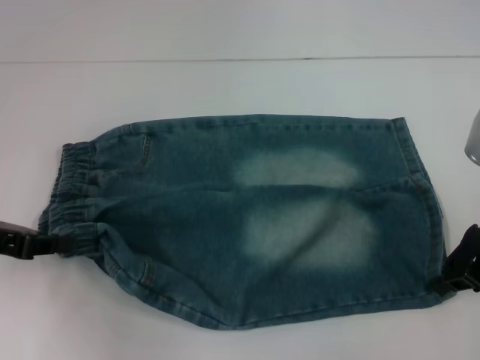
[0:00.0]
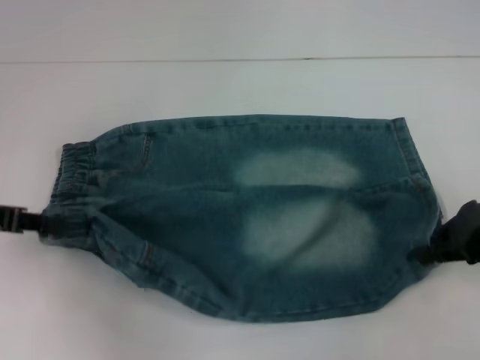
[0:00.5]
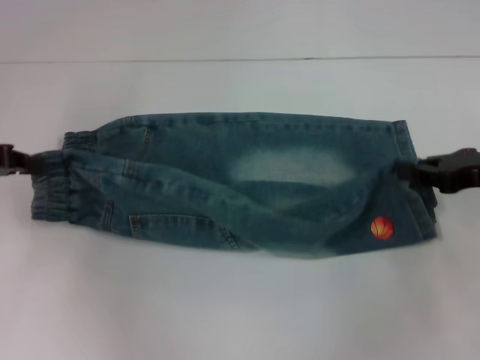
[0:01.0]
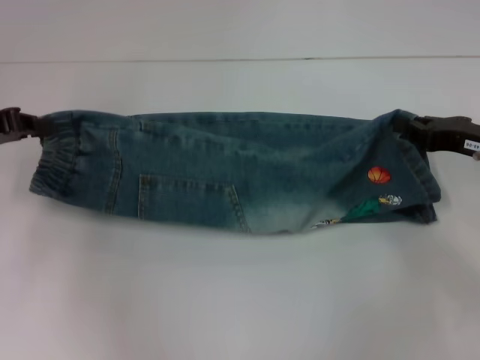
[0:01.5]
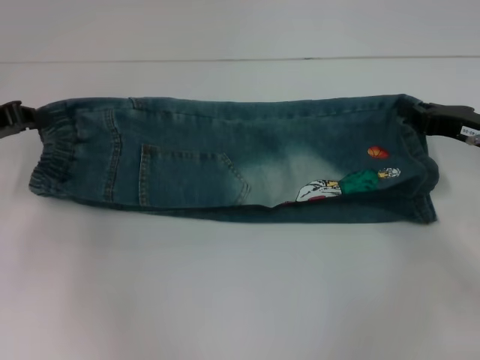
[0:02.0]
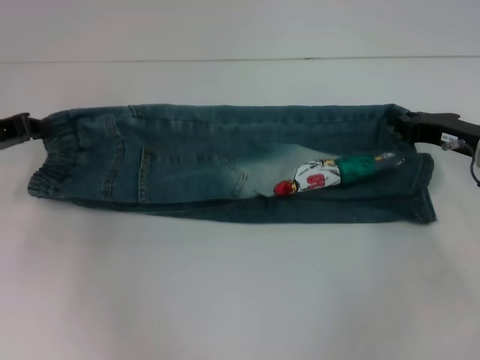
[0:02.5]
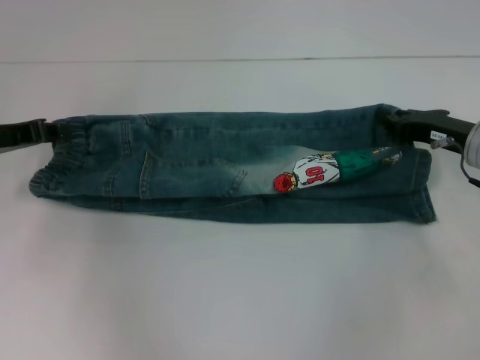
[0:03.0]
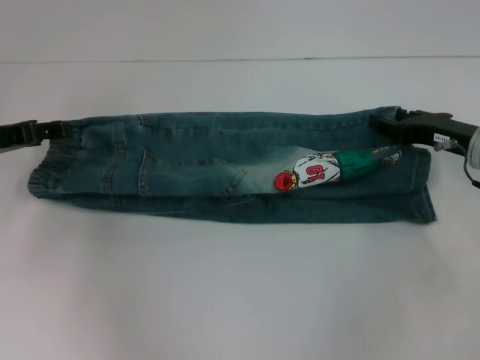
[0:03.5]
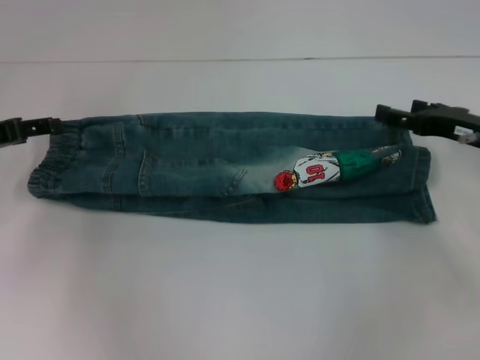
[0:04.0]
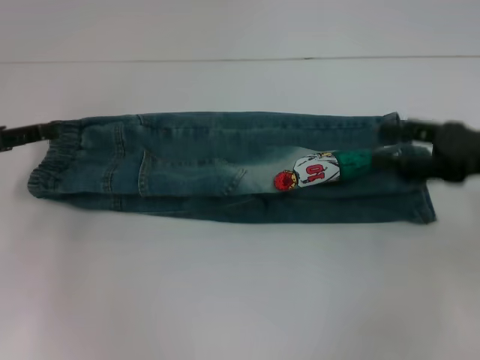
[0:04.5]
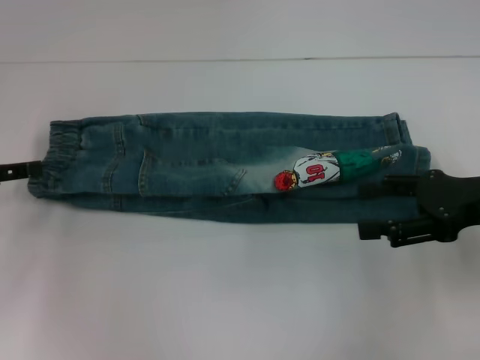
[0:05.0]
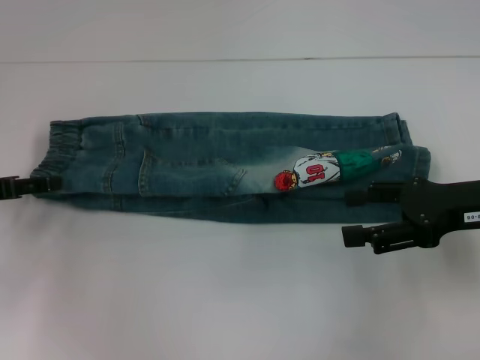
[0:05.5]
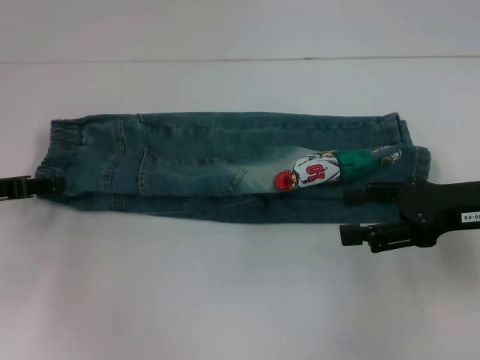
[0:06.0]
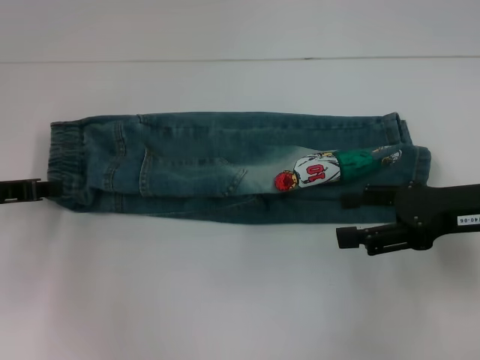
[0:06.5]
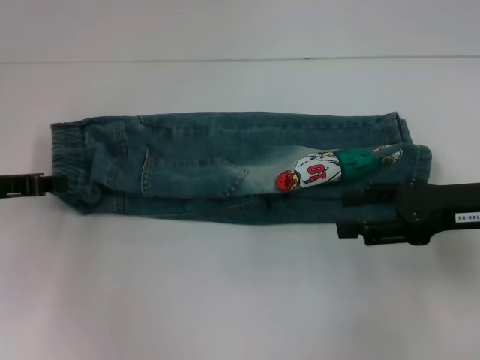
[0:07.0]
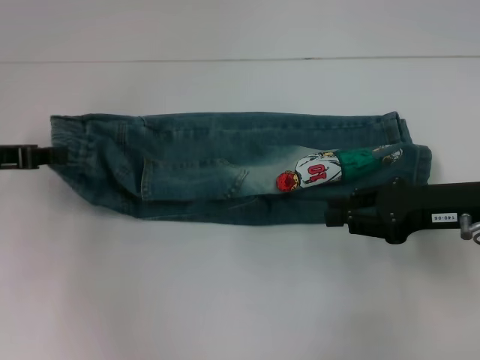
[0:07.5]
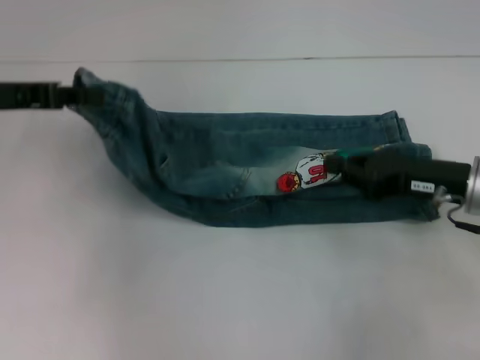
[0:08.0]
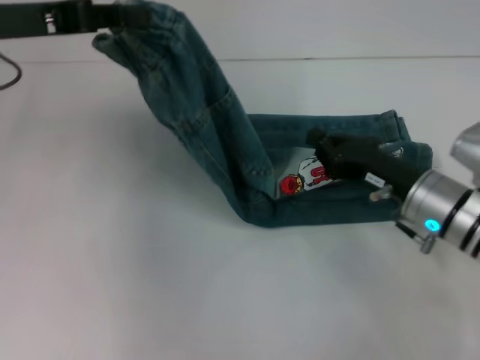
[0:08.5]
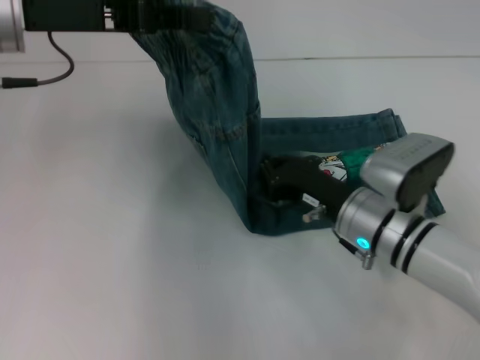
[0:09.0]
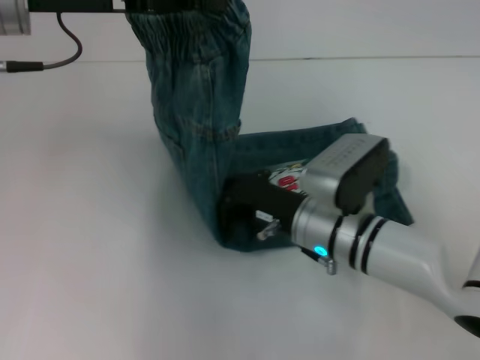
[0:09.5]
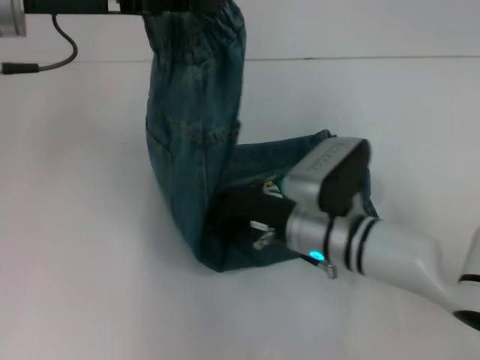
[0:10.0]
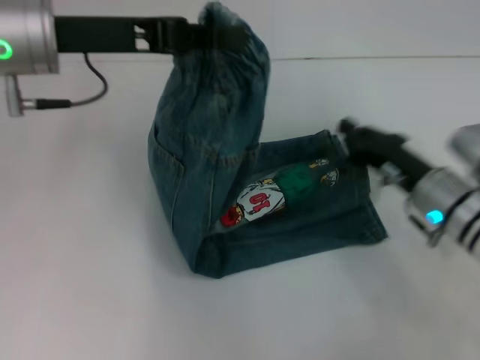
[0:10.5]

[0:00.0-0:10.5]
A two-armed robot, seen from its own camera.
Step, 0:00.5 to 0:03.0: Fold upward with your left hand.
Step, 0:04.0 to 0:06.0: Hold the waistband with your left hand.
Step, 0:06.5 to 0:09.5: Press the middle of the pants with your right hand.
0:00.0 to 0:02.0: The right gripper shifts about 5 cm downward. The left gripper goes some 5 cm forward.
0:02.0 to 0:04.0: The left gripper opens; the right gripper opens up.
0:04.0 to 0:06.5: The right gripper moves backward, about 5 cm. Meanwhile the left gripper closes up.
0:06.5 to 0:08.5: The left gripper travels upward and to the right by some 15 cm; the right gripper is displaced downward and to the left by some 10 cm, and closes.
0:08.5 to 0:10.5: The left gripper is displaced to the right by roughly 5 cm; the right gripper moves roughly 10 cm to the left and comes back.

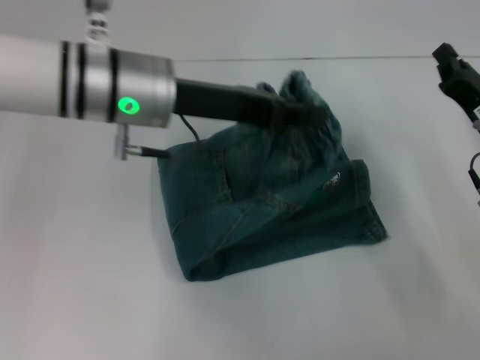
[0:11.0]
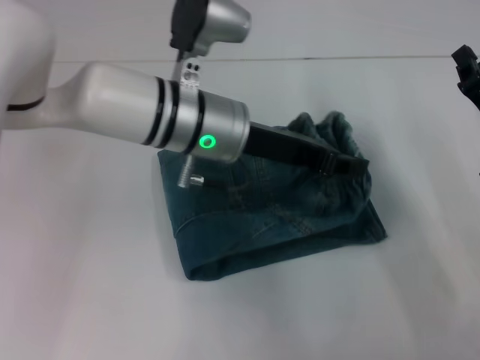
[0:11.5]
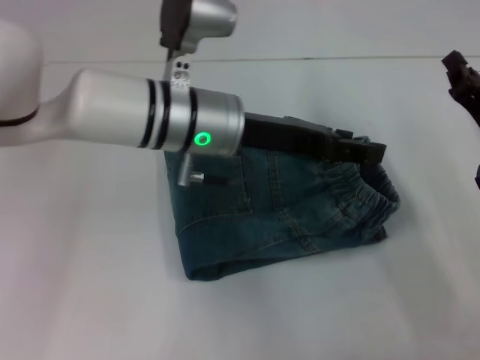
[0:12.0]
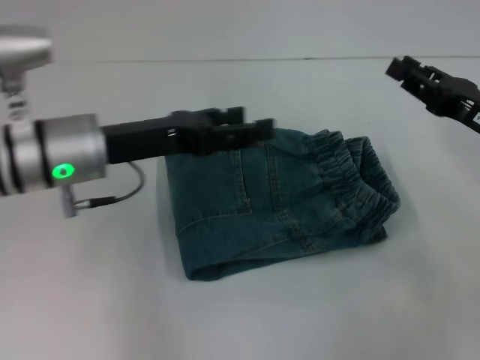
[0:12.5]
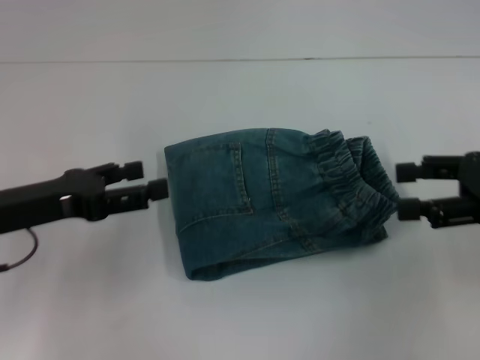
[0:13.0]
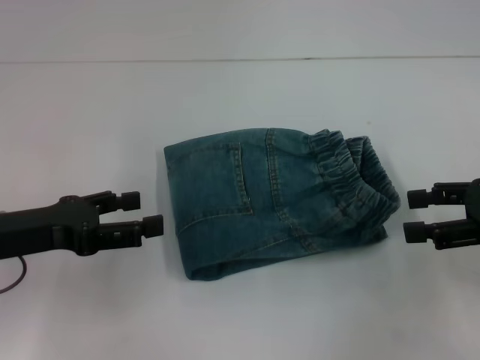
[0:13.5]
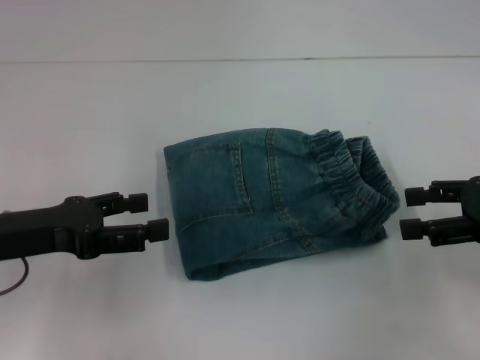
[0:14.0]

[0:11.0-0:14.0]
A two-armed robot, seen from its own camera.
0:11.0 to 0:12.5: The left gripper heads to the left and downward, covering about 10 cm, and opens up.
0:12.5 to 0:14.0: The right gripper shifts by roughly 5 cm, and opens up. Meanwhile the left gripper goes roughly 10 cm to the left and backward.
